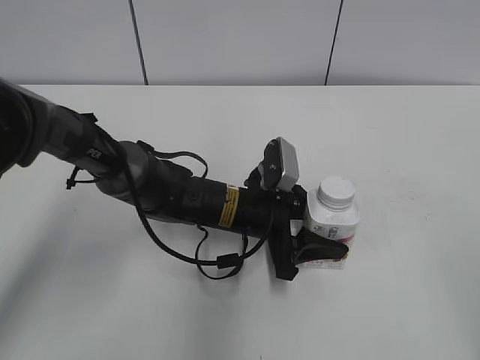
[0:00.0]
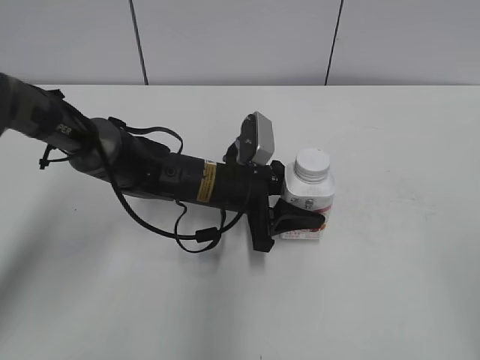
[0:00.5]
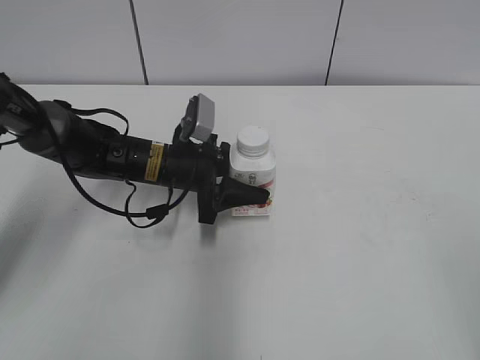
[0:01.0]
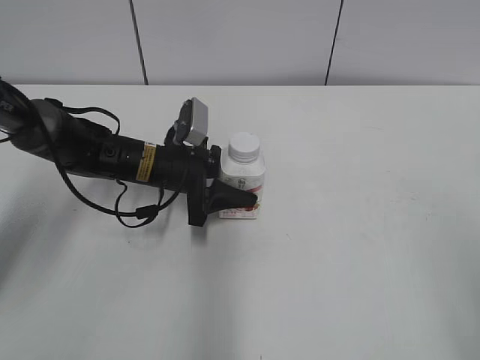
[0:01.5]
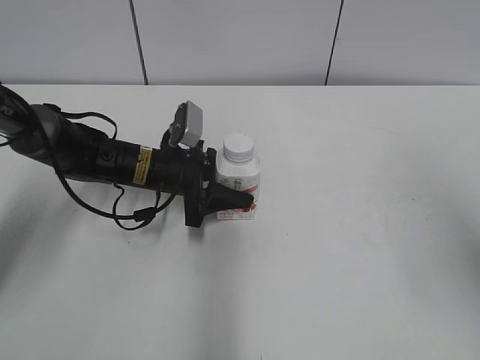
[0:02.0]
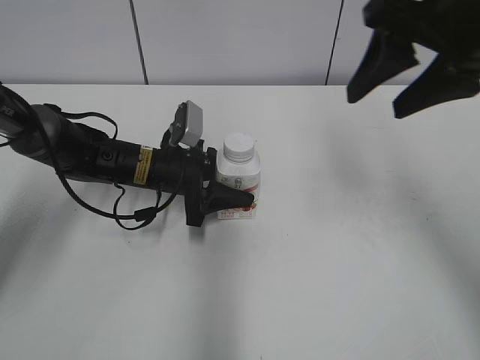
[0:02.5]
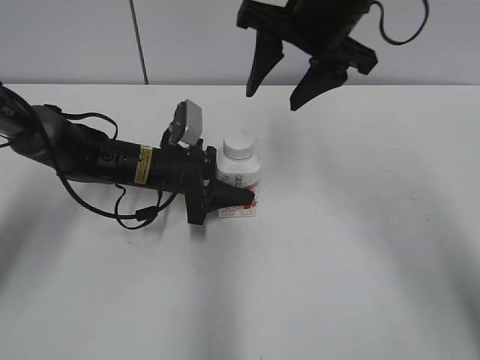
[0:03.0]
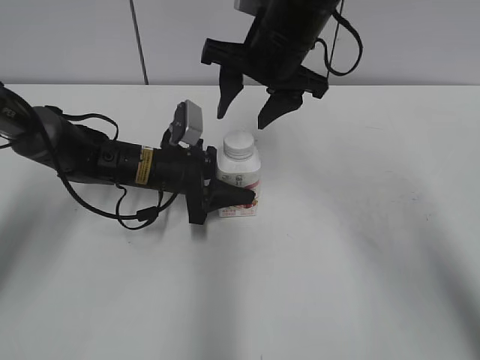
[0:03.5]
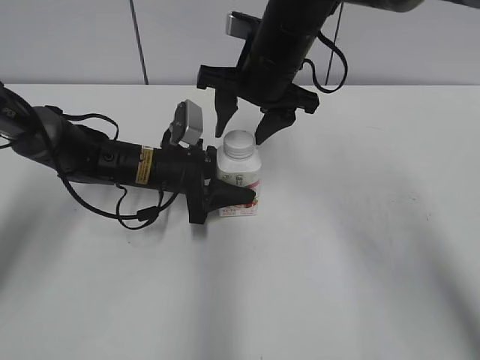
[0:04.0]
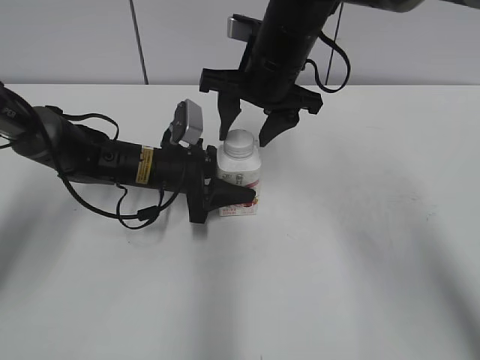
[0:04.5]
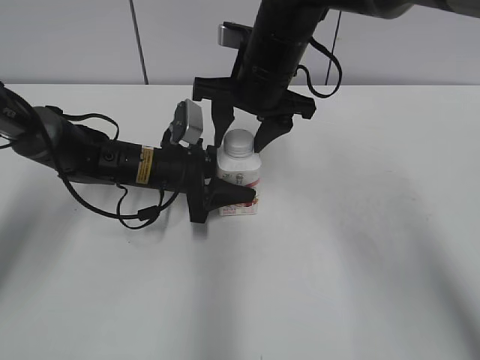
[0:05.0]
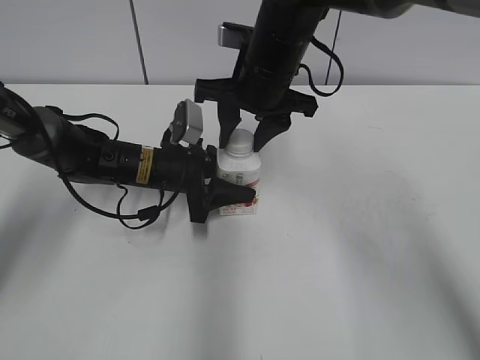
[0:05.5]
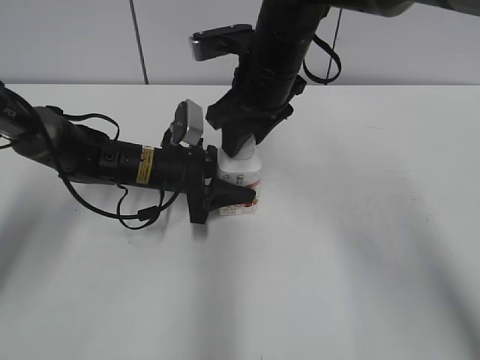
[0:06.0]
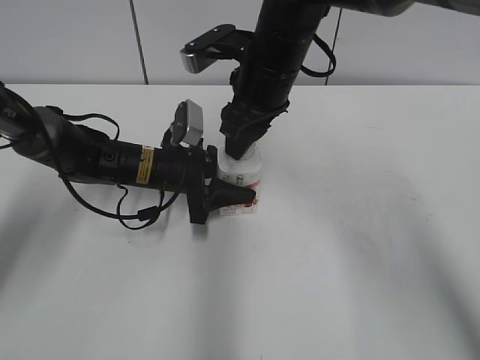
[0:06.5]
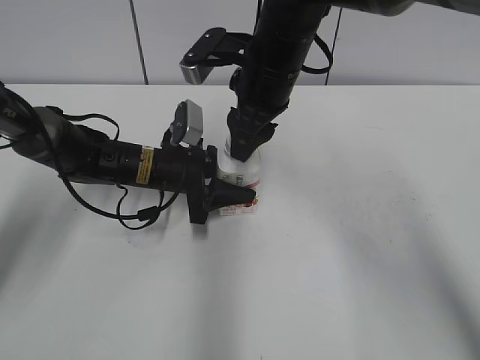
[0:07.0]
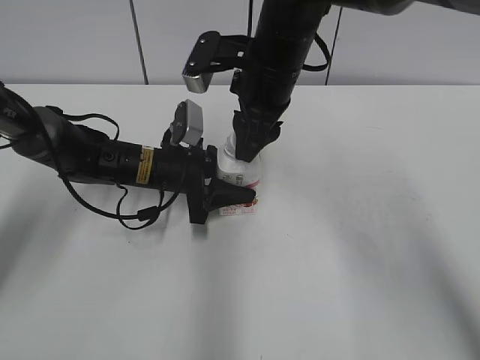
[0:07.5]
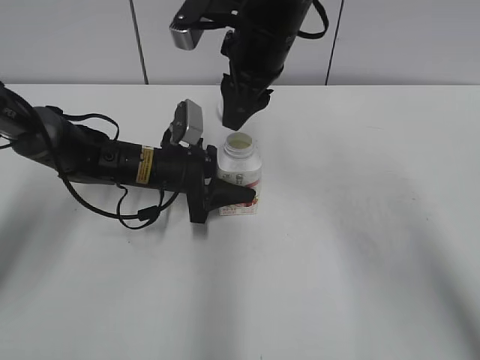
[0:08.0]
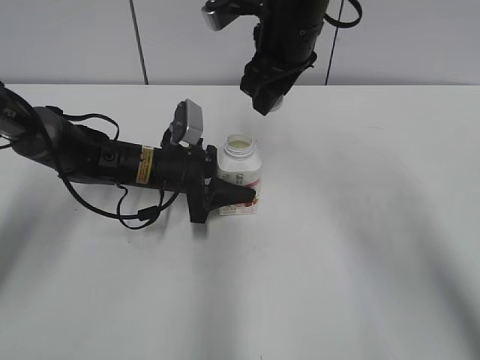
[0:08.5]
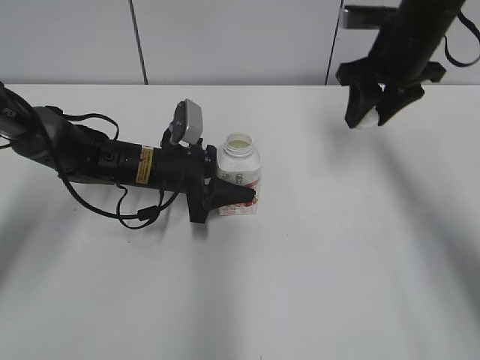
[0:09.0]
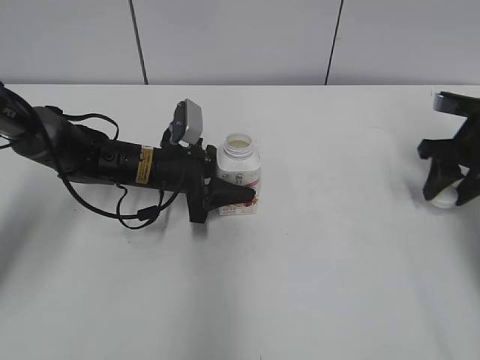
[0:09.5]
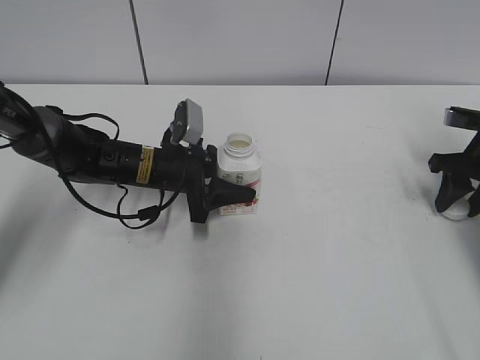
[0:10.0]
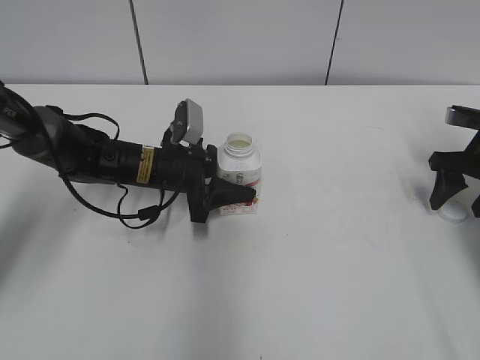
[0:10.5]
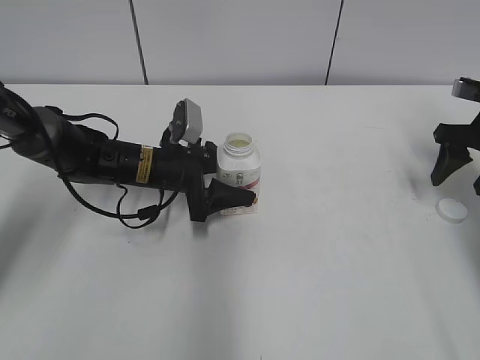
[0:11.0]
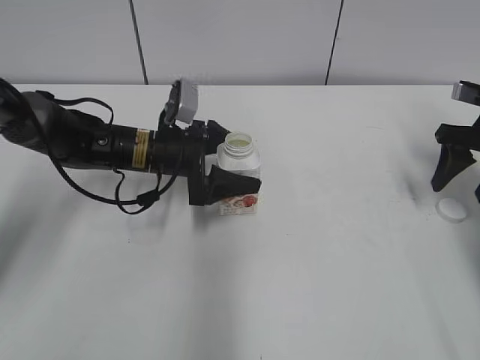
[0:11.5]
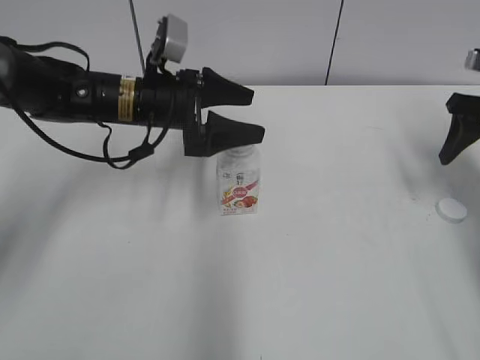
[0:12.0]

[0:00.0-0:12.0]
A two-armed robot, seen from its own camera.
Step, 0:00.0 to 0:01.5: Move the Yili Changqing from right to left.
Step, 0:02.0 to 0:07.5: Twist the bottle cap with the right hand.
Step, 0:08.0 to 0:10.5: Place the bottle cap on the right.
0:00.0 to 0:02.0: The right gripper heads forward and upward, covering about 15 cm. Meanwhile the left gripper travels to the left and forward by approximately 15 cm.
0:02.0 to 0:04.0: The right gripper travels forward, to the left and downward by some 35 cm.
0:04.0 to 0:06.0: The right gripper closes.
0:08.0 to 0:10.0: The right gripper travels to the right and downward by some 35 cm.
0:10.0 to 0:12.0: Both grippers move upward, about 10 cm. The left gripper opens its fingers; the right gripper opens.

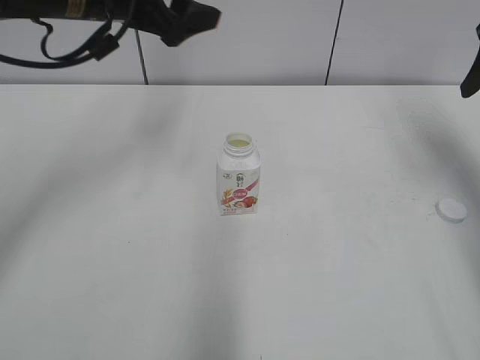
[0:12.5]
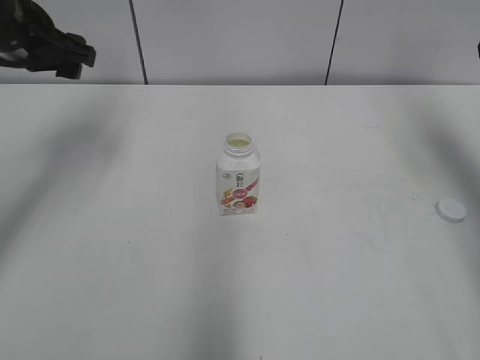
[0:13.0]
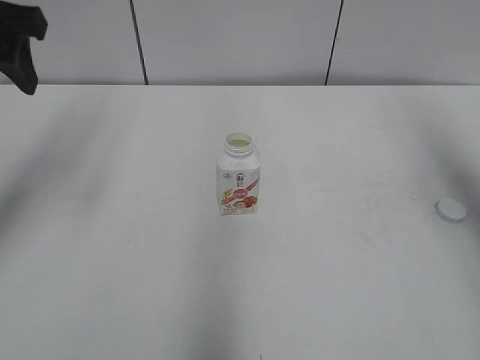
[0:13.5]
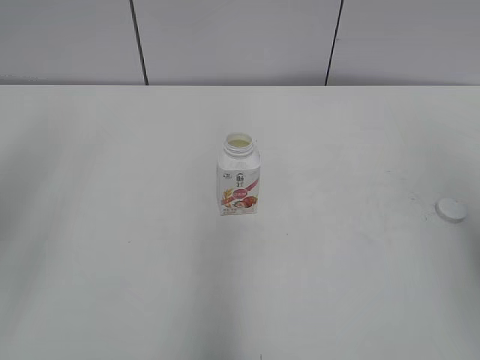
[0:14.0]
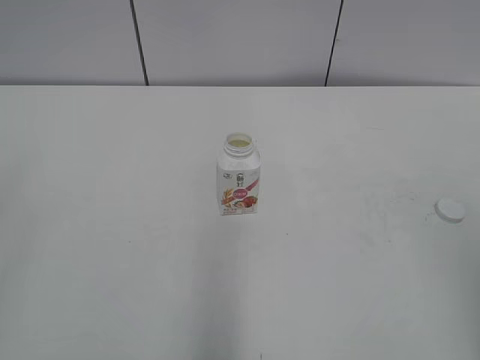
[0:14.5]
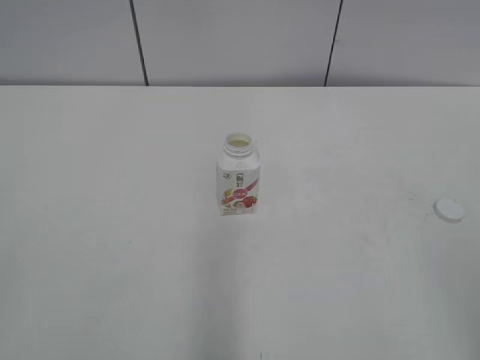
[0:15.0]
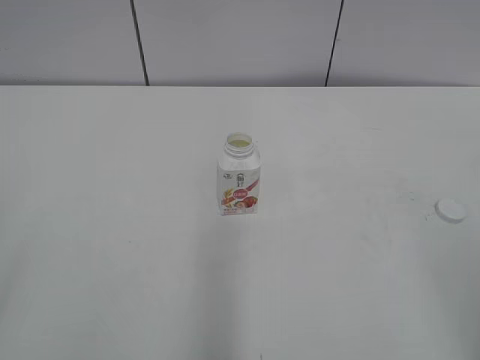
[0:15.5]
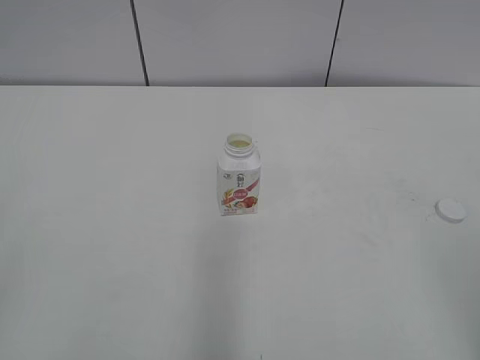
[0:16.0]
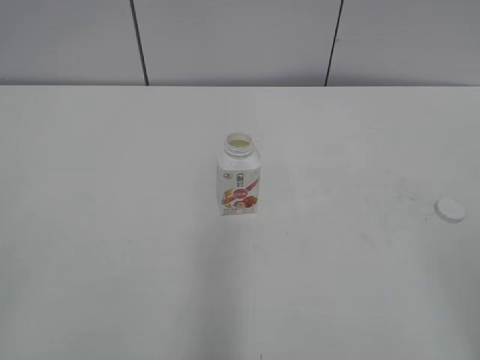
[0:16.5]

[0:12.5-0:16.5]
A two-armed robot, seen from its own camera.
0:12.5 to 0:14.5: The left gripper goes approximately 40 cm backward and to the left, and closes its fingers, while the right gripper goes about 35 cm backward.
